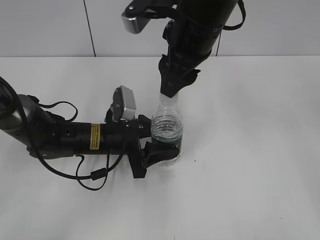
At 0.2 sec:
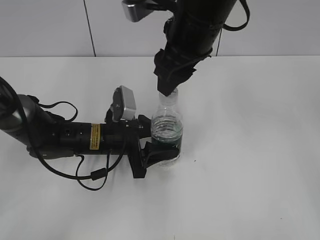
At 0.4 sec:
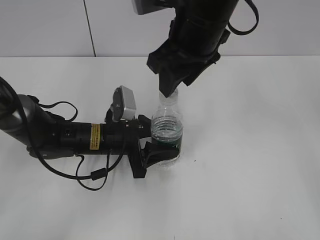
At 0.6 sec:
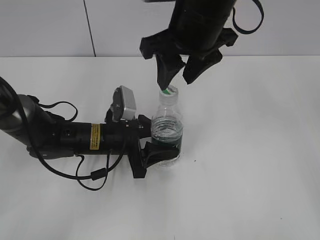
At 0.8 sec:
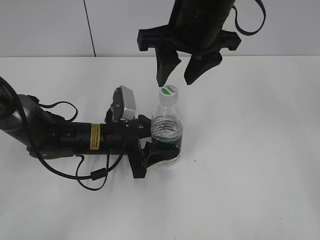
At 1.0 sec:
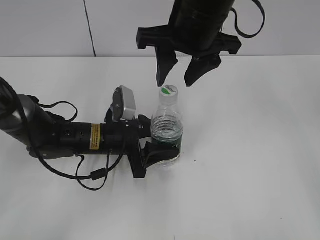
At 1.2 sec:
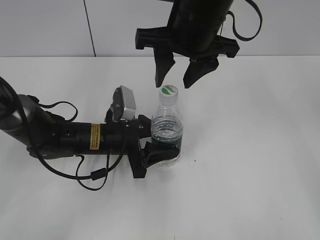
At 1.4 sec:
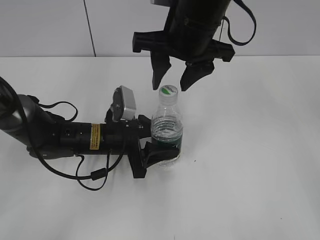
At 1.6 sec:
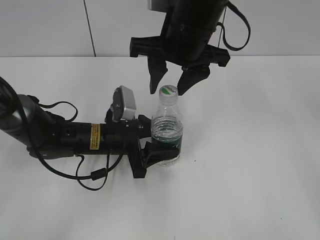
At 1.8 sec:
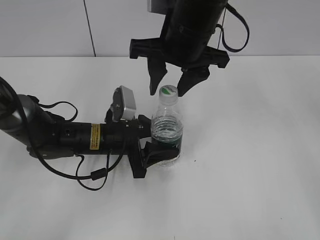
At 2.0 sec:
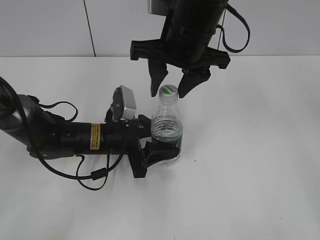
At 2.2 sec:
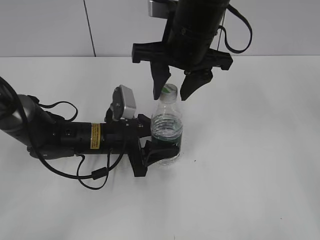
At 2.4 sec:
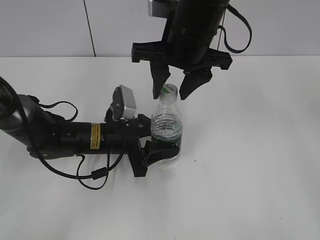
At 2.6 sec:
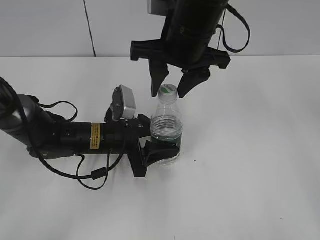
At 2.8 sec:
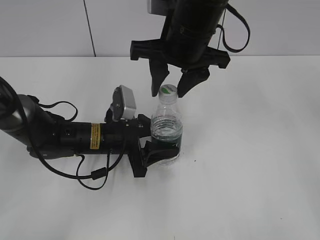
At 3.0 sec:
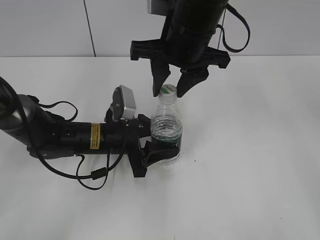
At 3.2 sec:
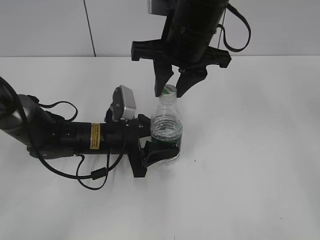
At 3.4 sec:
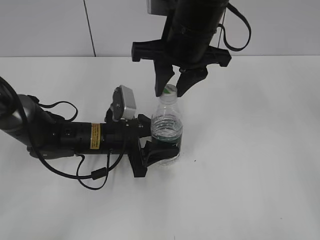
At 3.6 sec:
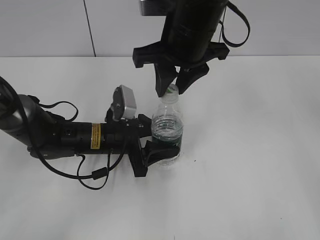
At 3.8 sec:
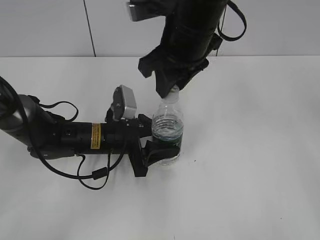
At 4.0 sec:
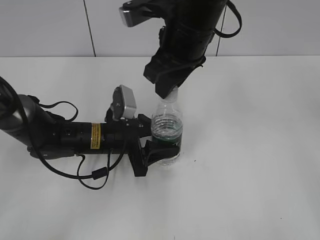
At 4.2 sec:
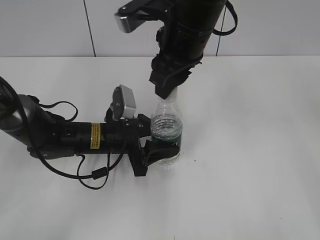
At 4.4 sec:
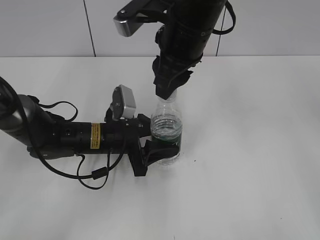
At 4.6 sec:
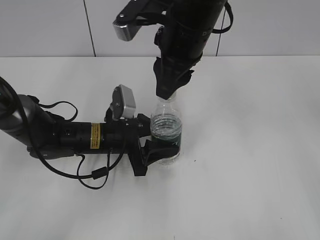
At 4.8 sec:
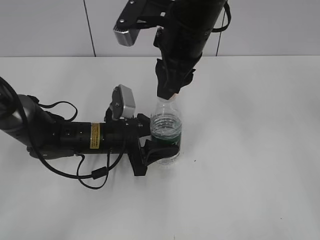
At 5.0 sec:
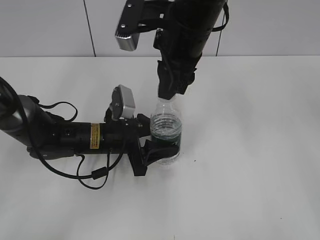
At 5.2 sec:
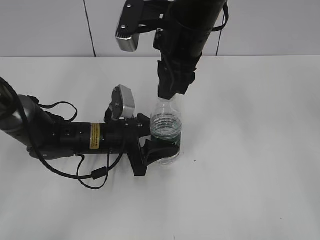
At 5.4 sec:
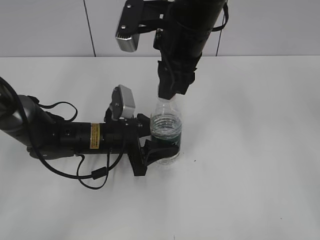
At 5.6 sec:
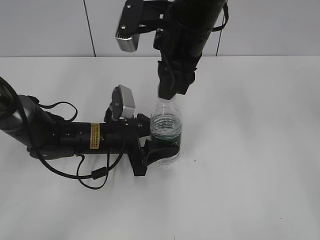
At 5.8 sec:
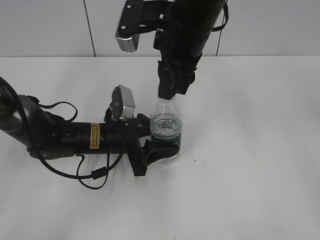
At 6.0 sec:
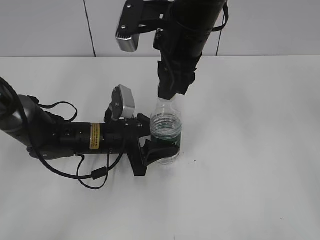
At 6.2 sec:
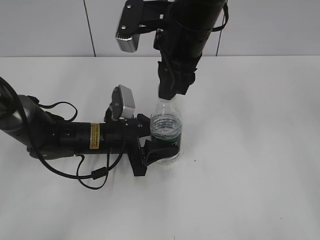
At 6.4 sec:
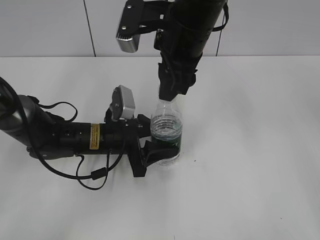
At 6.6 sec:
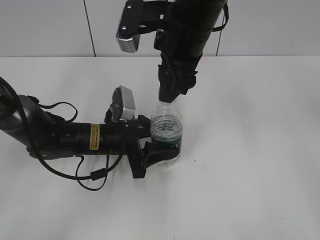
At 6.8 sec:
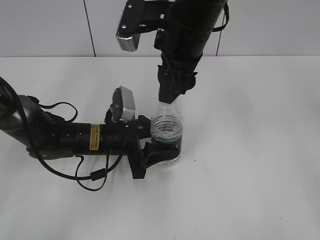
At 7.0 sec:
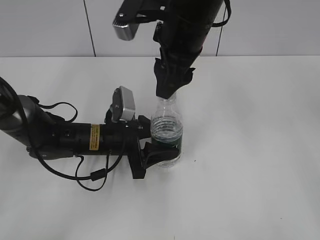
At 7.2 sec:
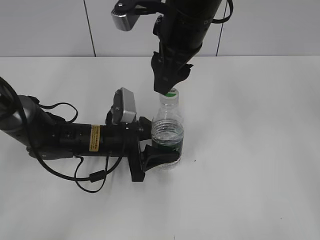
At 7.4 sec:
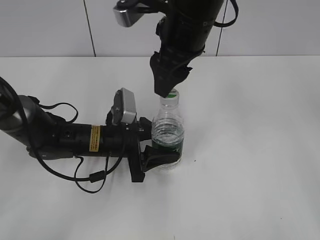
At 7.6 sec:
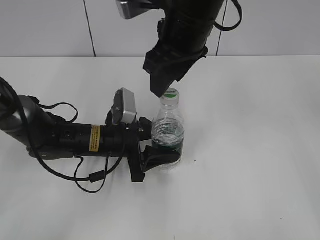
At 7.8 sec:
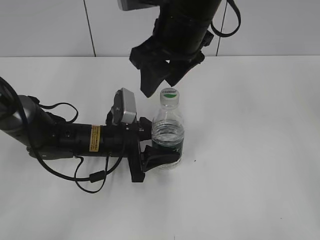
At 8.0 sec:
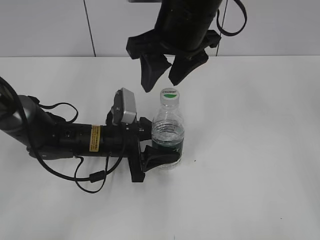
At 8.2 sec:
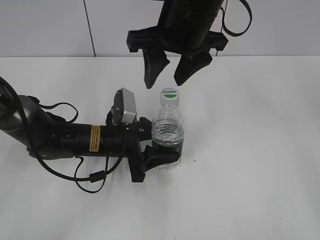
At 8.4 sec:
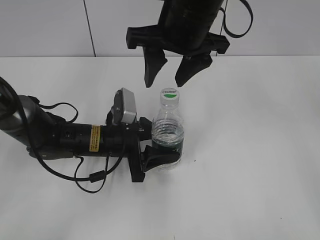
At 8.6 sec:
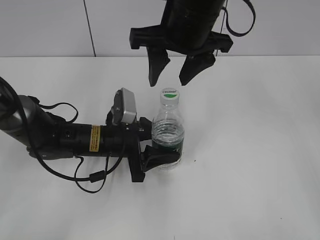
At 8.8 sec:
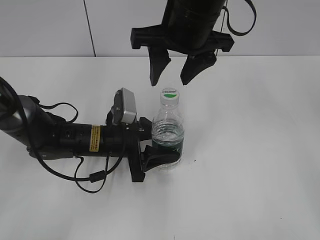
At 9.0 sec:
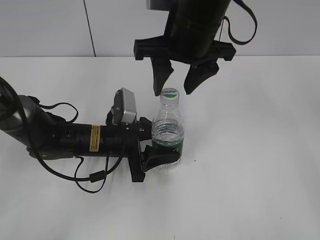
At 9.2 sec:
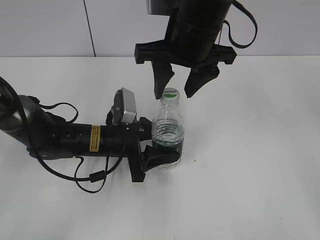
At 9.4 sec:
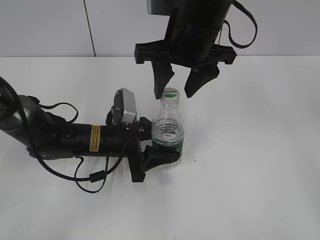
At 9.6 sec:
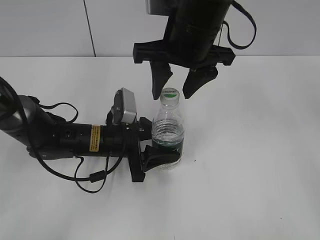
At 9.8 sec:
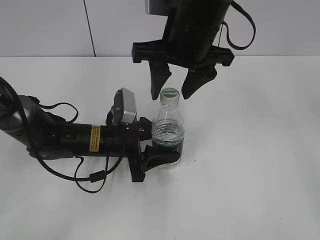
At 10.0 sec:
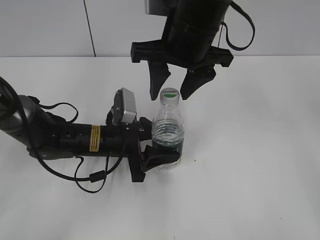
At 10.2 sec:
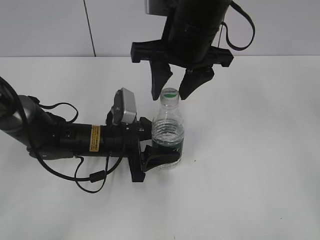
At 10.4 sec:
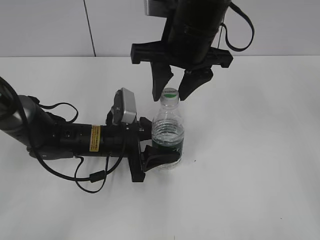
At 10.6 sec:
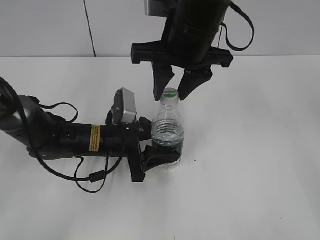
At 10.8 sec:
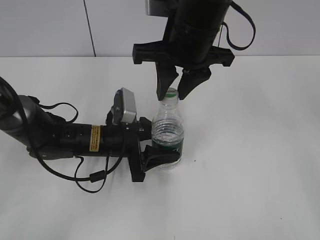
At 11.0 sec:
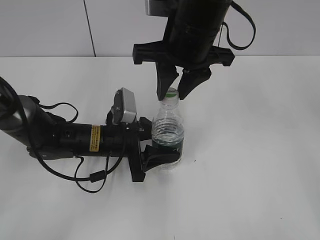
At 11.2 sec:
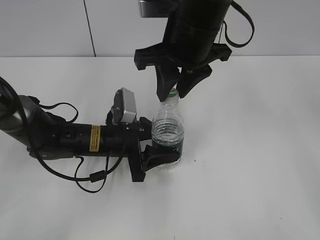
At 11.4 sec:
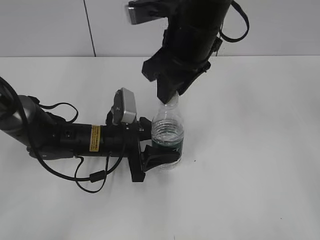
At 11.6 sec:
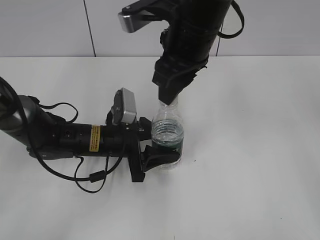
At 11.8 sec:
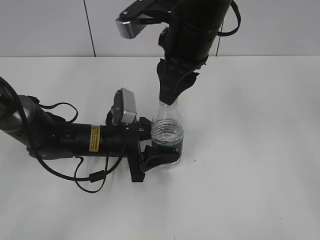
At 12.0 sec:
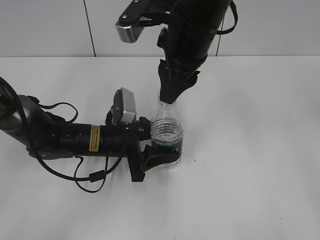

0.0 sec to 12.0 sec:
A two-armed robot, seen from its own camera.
1.6 sec to 3.0 sec: Both grippers stay put.
3.0 sec to 4.4 sec: The right gripper closes its fingers.
6.0 sec to 7.6 sec: The right gripper opens its fingers.
9.0 sec to 10.4 sec: The right gripper closes.
10.4 sec to 12.0 sec: The right gripper closes its fingers.

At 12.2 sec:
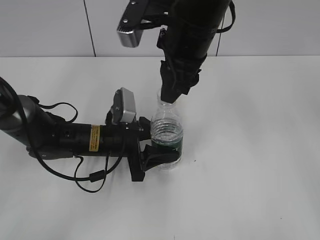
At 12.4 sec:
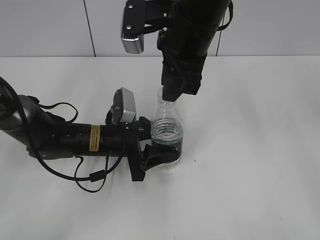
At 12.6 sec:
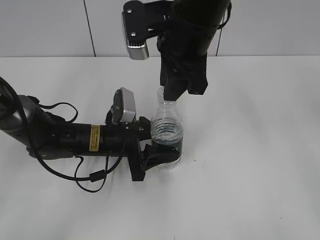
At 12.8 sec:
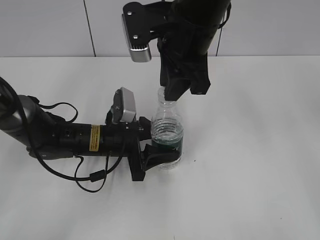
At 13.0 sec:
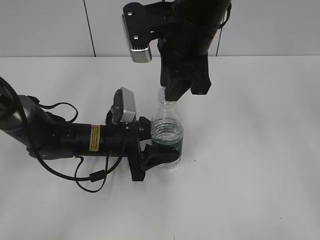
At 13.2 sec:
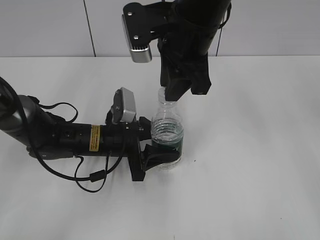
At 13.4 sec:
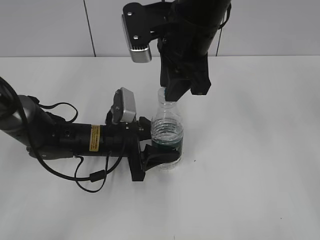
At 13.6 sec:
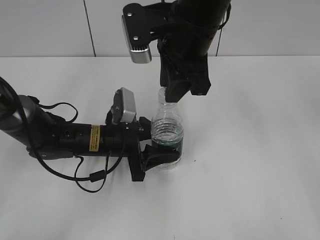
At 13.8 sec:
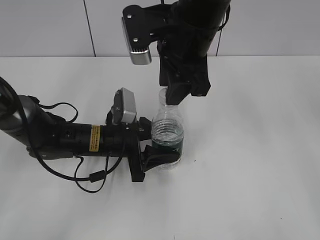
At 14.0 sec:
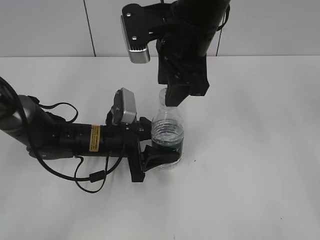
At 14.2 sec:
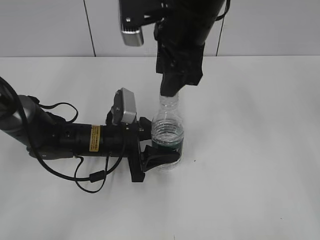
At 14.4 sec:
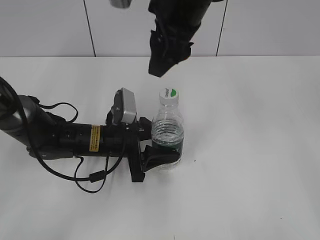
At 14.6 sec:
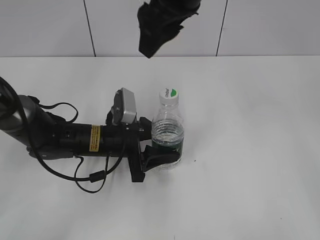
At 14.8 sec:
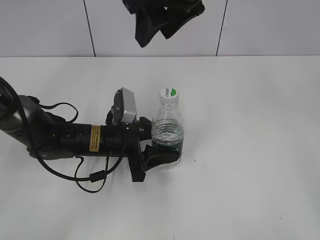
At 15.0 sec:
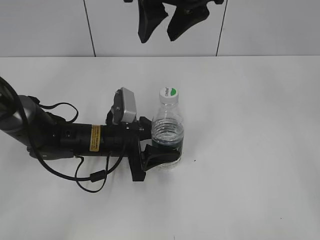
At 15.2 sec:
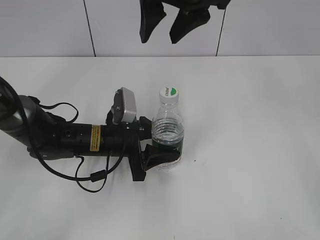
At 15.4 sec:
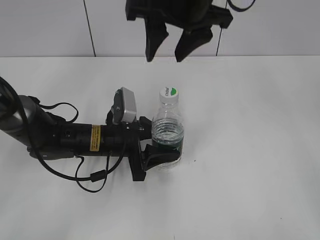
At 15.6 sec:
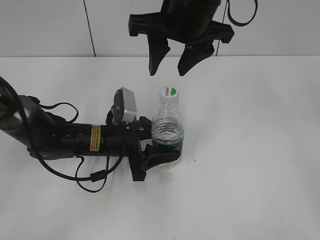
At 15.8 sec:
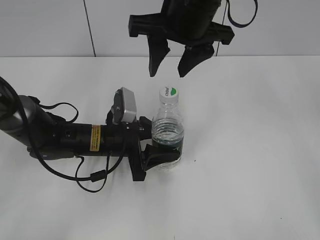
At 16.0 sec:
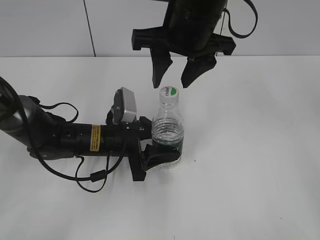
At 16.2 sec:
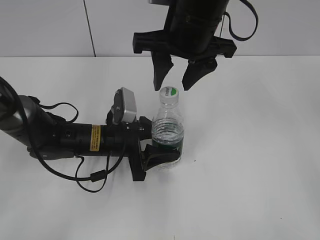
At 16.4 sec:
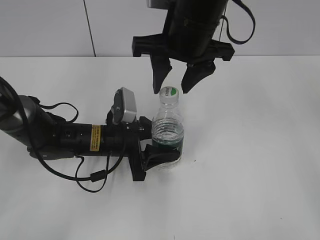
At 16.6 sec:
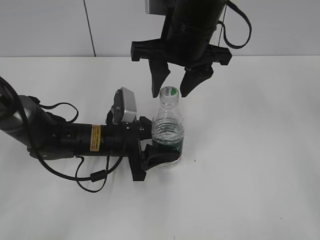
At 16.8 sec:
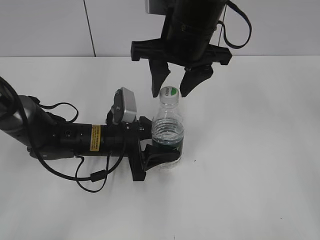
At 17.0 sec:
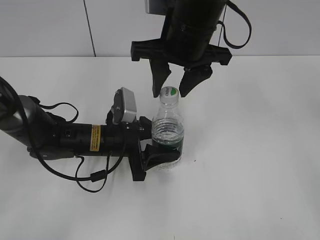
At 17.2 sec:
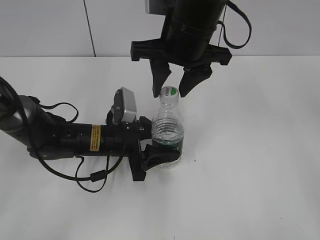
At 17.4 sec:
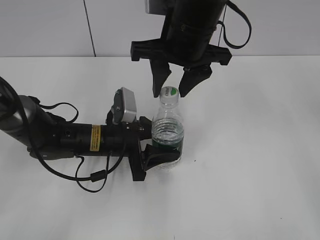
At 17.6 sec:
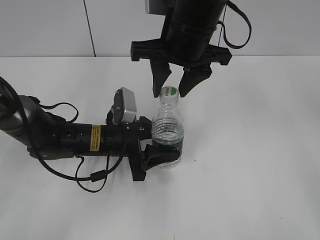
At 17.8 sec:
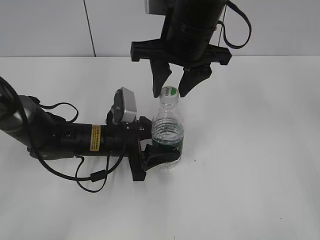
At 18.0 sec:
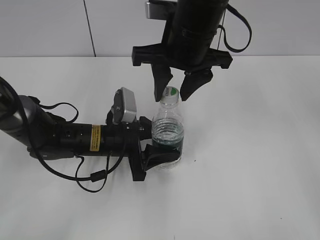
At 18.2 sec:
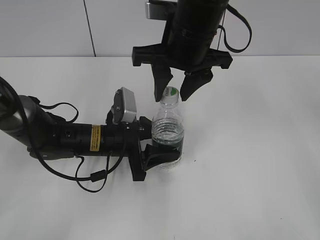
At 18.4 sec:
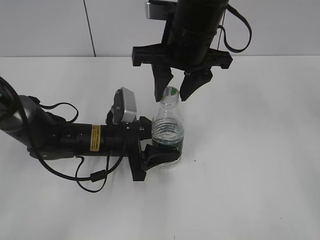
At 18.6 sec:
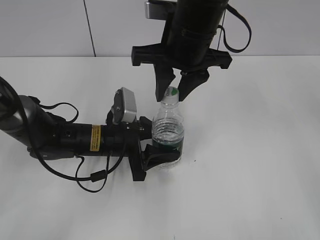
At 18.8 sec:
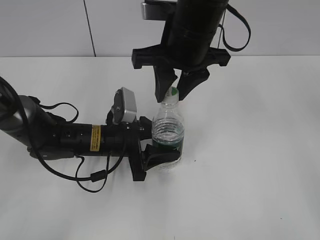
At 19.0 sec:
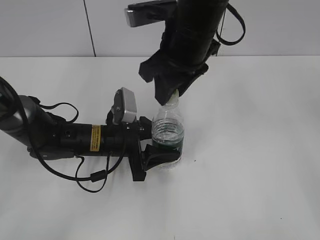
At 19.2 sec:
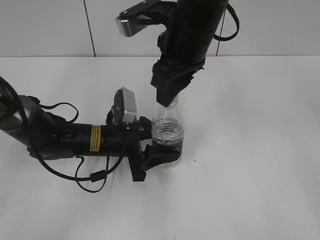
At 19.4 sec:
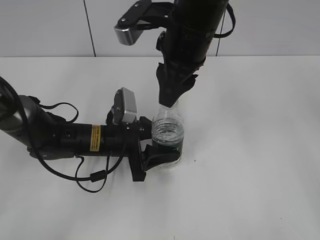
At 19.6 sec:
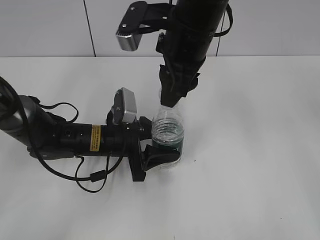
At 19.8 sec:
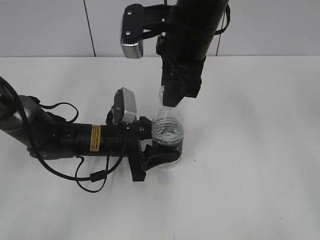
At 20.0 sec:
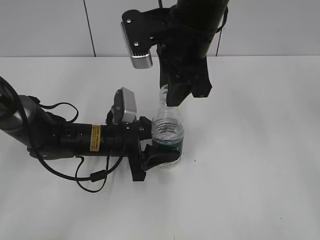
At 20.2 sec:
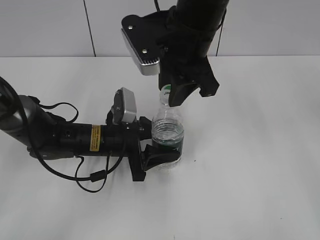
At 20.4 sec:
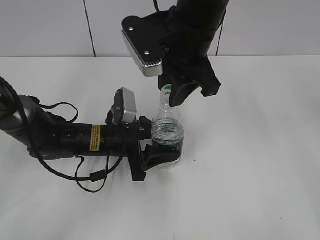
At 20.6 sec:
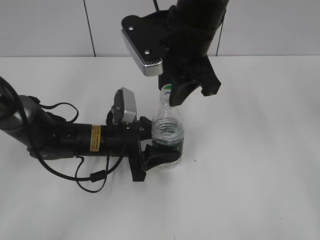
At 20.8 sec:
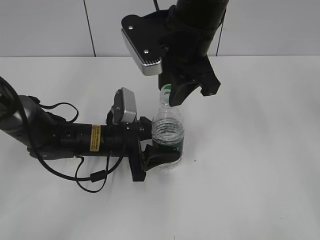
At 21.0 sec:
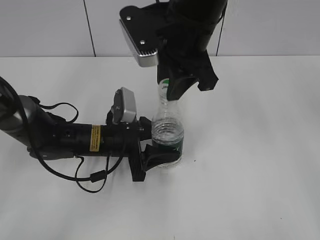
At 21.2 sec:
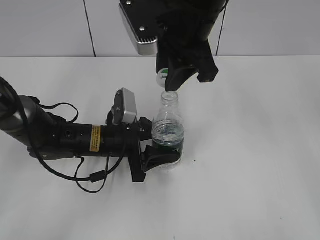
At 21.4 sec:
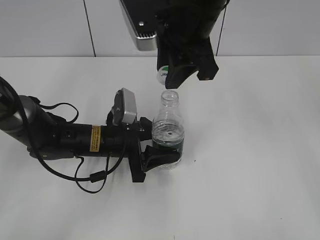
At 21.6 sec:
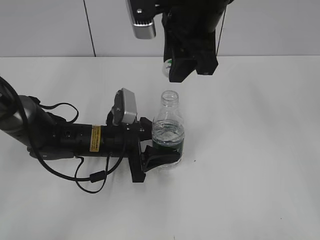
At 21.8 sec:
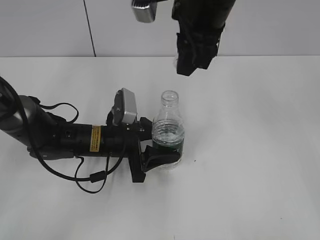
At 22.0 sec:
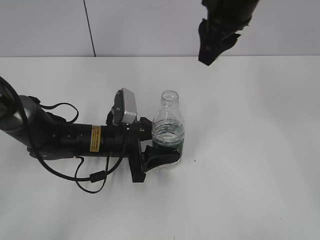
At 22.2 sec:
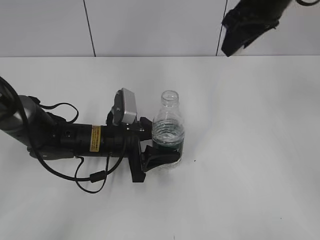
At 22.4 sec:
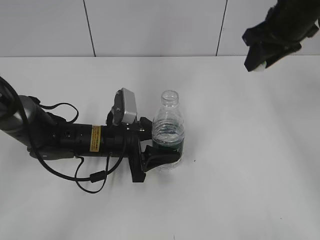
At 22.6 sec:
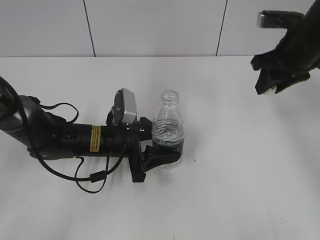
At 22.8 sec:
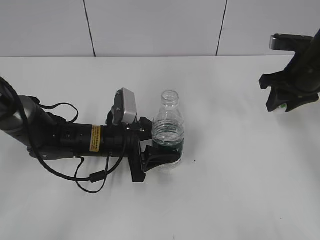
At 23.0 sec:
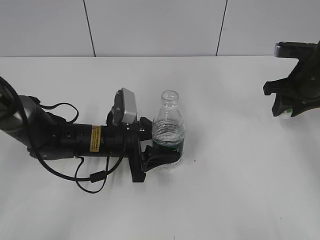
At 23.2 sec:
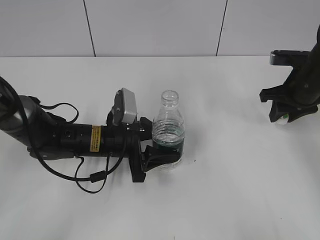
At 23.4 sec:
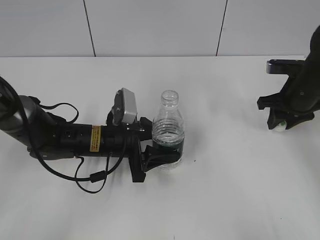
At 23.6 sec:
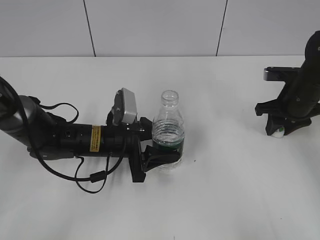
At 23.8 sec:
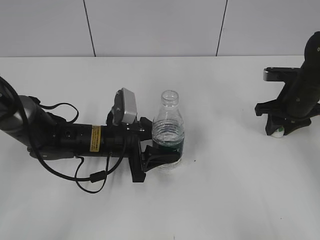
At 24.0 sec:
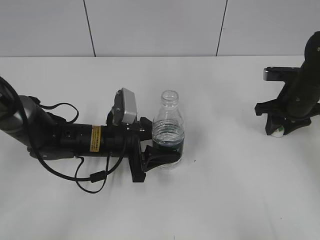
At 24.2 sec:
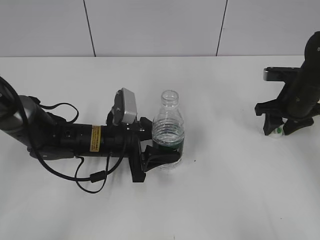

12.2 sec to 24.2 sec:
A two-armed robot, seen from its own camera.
Step, 12.2 sec to 21.2 sec: Unscrew the bottle cap with the right gripper while holding the bottle with the left gripper.
12.2 sec to 13.8 sec: The right gripper opens.
13.8 sec to 15.2 sec: The right gripper travels upward by some 5 cm, and opens up.
15.2 sec to 16.6 sec: The right gripper goes approximately 5 cm downward.
16.6 sec to 18.2 sec: Neither gripper changes place.
18.2 sec to 19.8 sec: The right gripper closes up.
21.2 sec to 22.6 sec: The right gripper goes roughly 20 cm to the right.
22.6 sec to 24.2 sec: The right gripper is displaced downward by approximately 10 cm, and opens up.
